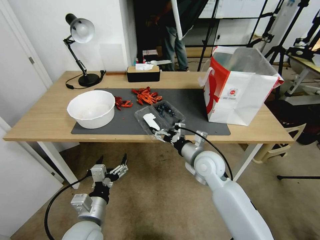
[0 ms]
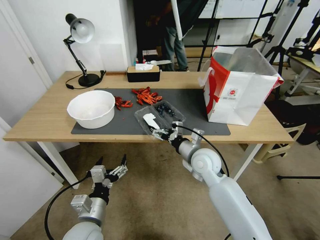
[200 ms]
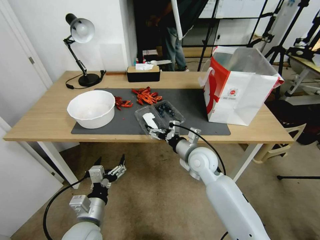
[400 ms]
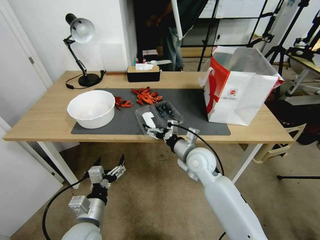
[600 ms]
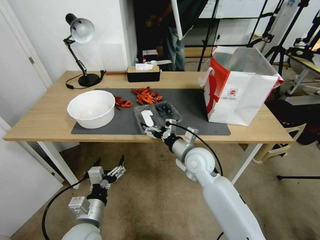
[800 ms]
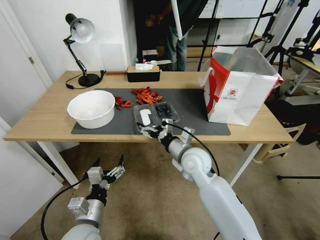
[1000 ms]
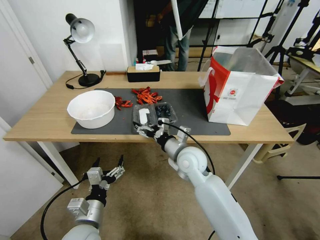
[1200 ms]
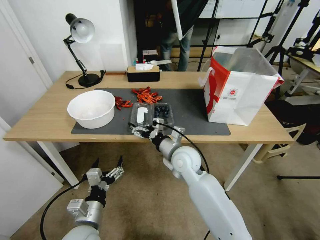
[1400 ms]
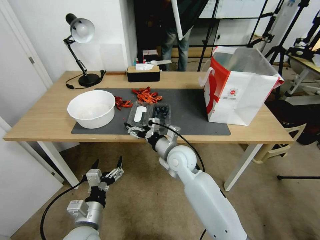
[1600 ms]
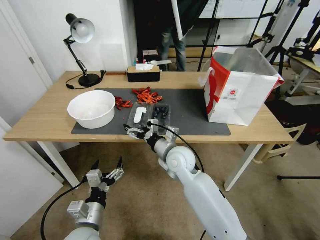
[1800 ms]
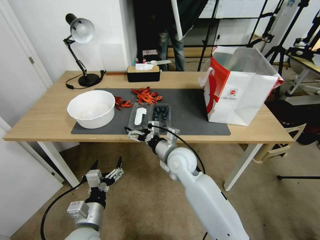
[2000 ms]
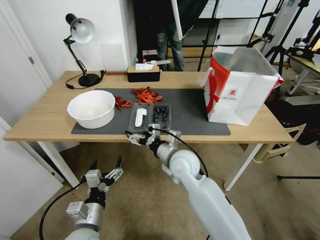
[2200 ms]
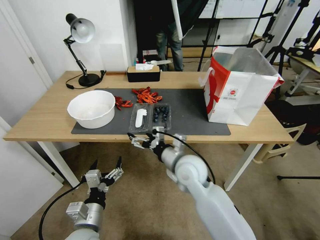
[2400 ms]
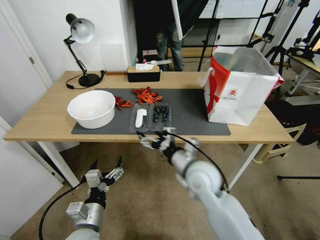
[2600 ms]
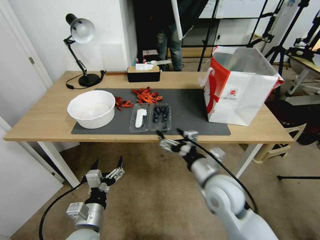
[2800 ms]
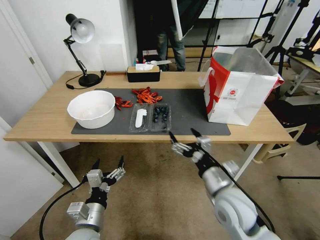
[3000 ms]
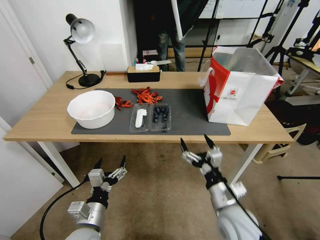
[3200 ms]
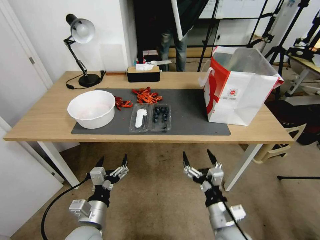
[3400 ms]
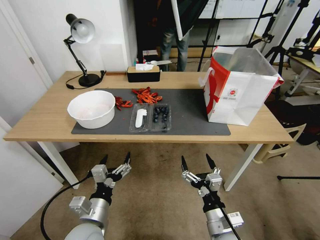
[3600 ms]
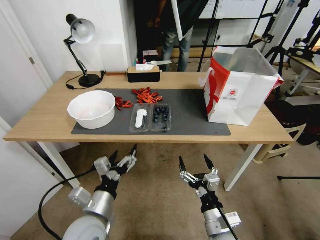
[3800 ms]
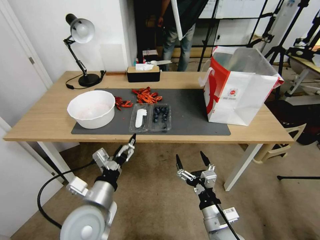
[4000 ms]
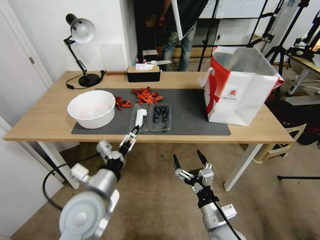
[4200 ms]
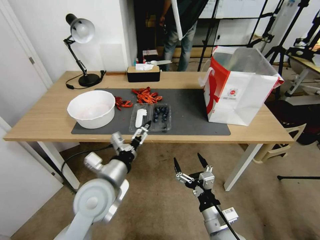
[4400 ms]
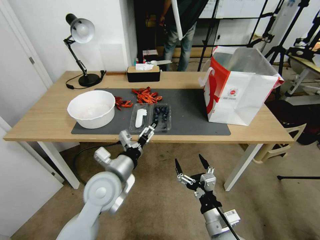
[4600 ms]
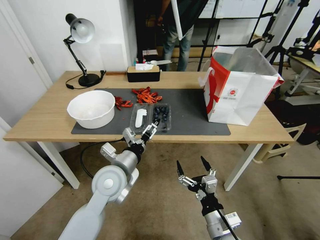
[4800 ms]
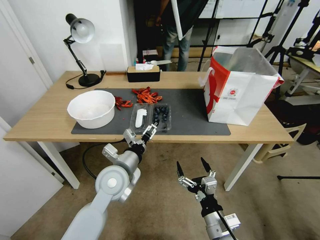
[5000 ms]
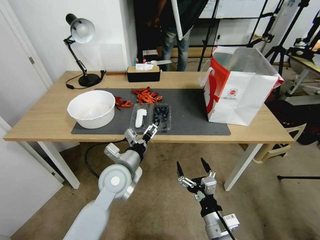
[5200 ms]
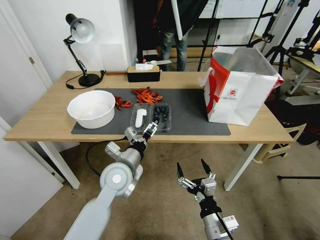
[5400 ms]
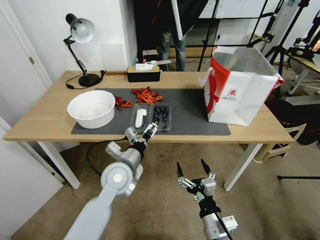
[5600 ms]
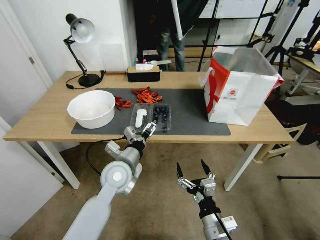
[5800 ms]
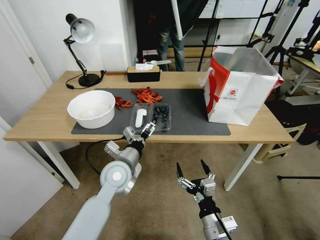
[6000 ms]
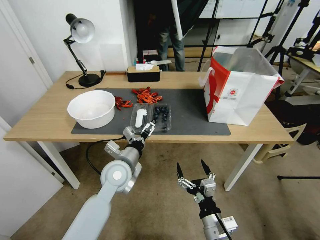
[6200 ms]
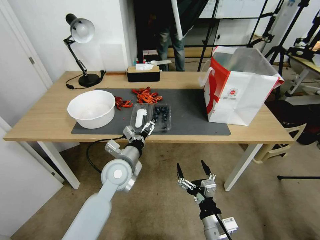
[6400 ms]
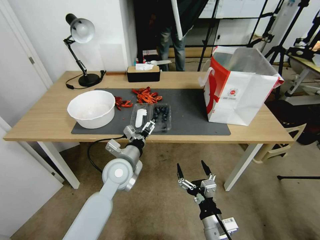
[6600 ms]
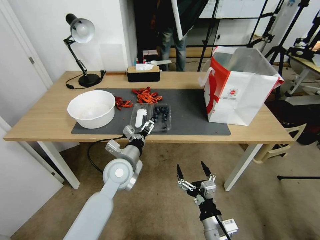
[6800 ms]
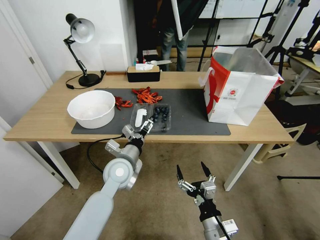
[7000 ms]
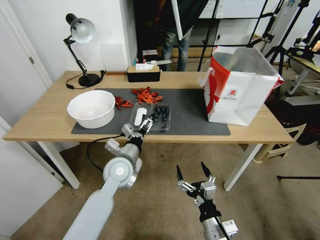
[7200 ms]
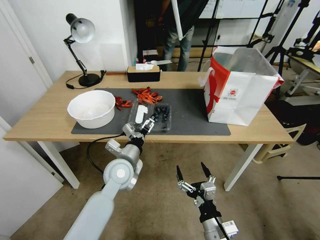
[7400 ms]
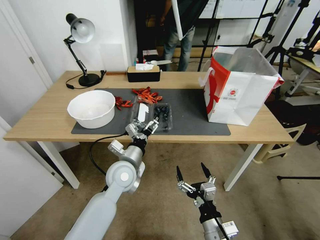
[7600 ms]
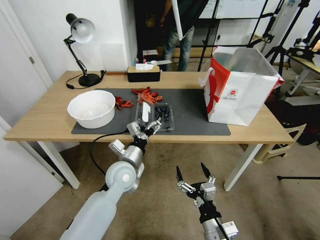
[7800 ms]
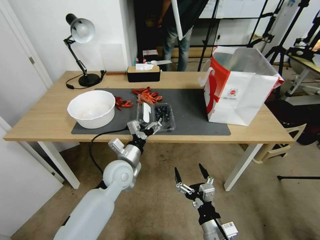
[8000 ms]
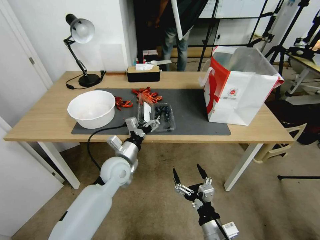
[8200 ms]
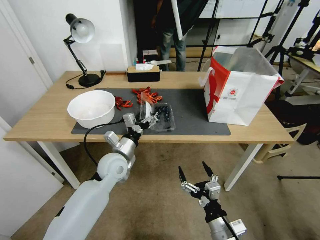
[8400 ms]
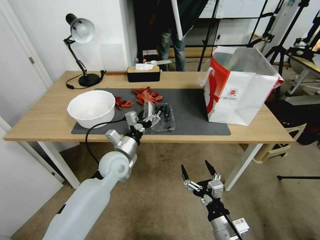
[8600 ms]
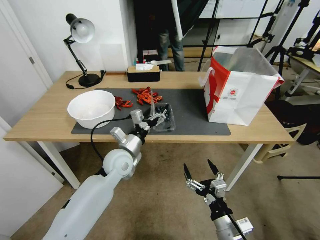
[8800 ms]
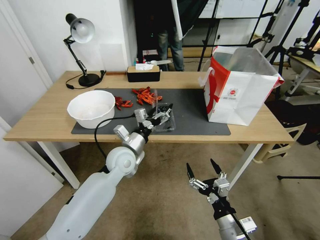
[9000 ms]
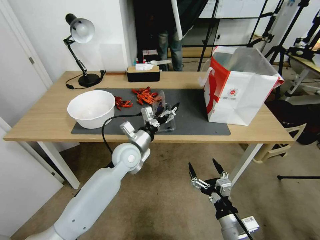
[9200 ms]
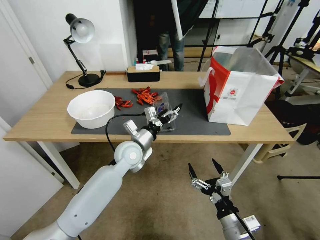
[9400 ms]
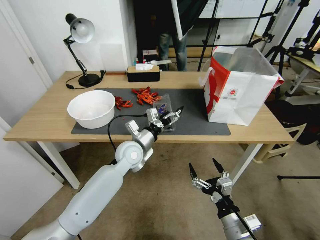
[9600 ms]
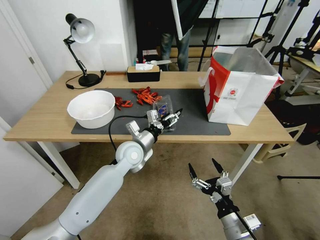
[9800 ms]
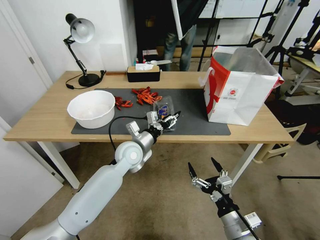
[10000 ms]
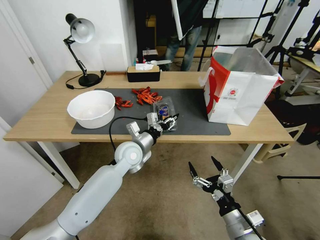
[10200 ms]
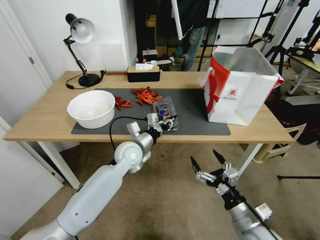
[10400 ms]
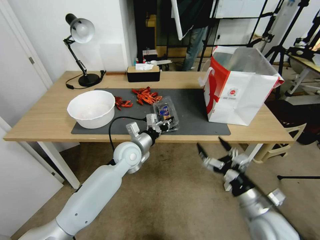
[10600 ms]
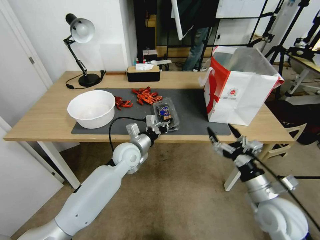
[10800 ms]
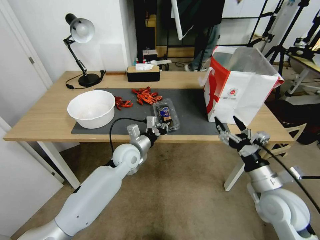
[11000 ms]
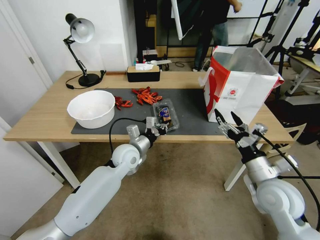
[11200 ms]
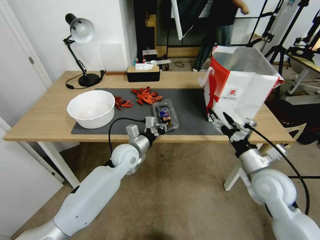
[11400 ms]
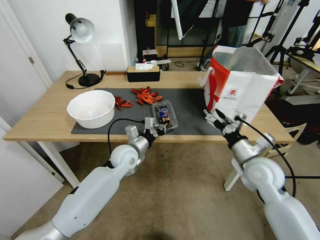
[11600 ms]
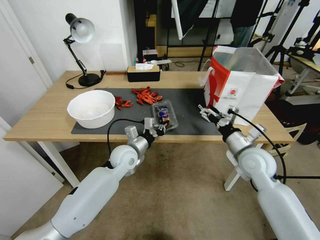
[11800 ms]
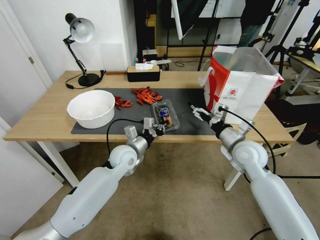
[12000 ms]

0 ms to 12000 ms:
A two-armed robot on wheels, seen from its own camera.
Task of the whole recording: Close the takeout container lid, then place the container into the takeout bag.
0 ms to 1600 ms: The right gripper heads to the left, covering approximately 10 cm.
1600 ms to 3000 ms: The right gripper heads backward and to the right, covering some 20 cm.
3000 ms to 4400 ms: The left gripper is displaced upward and forward by about 15 cm. Meanwhile the right gripper goes roughly 10 cm downward and backward.
4400 ms to 6000 ms: The left gripper shifts some 10 cm forward and downward.
6000 ms to 7600 ms: There are only small adjustments of the grippers.
9000 ms to 10400 ms: The left gripper closes its fingers; the right gripper shifts by approximately 5 cm.
10400 ms to 12000 ms: The right gripper is displaced forward and upward by approximately 25 cm.

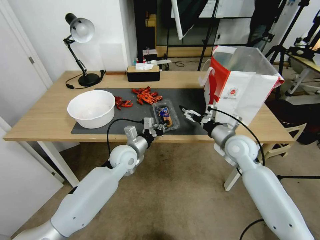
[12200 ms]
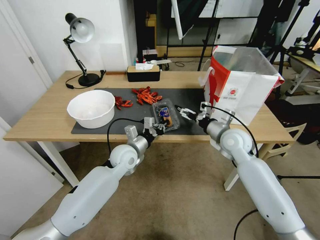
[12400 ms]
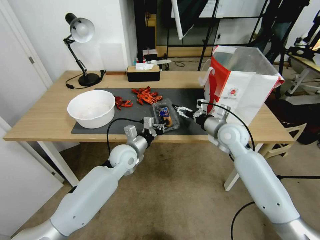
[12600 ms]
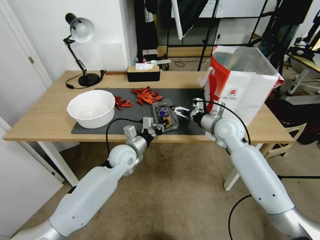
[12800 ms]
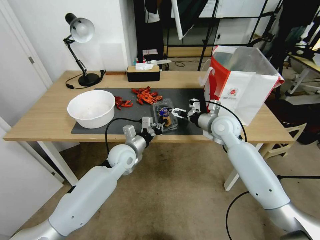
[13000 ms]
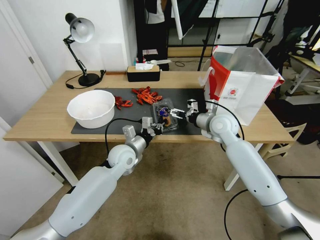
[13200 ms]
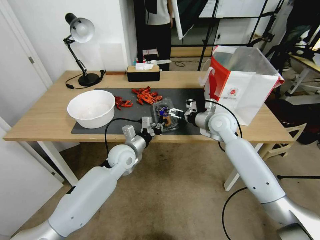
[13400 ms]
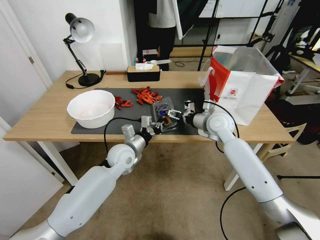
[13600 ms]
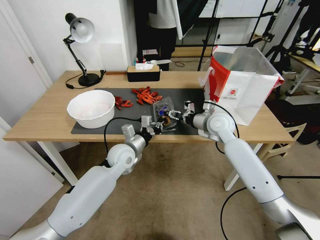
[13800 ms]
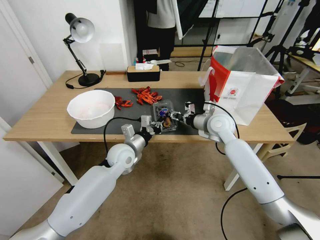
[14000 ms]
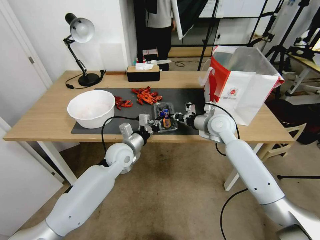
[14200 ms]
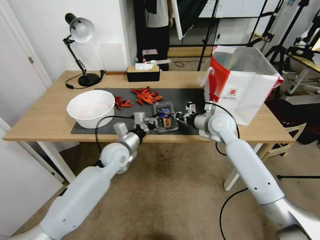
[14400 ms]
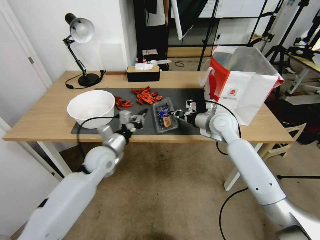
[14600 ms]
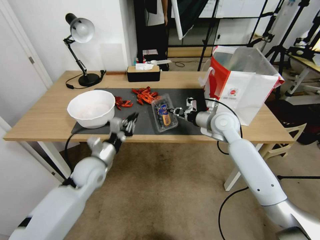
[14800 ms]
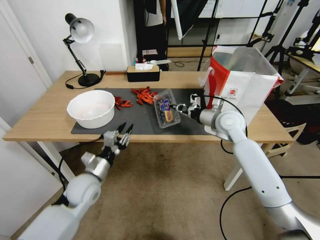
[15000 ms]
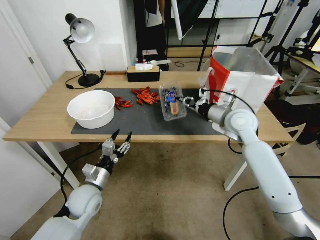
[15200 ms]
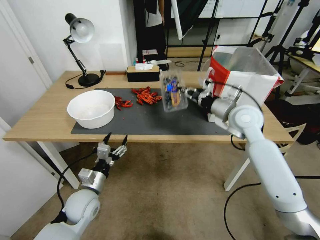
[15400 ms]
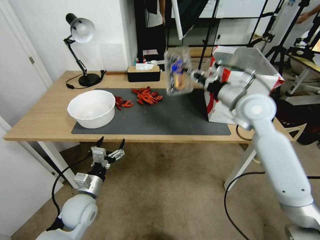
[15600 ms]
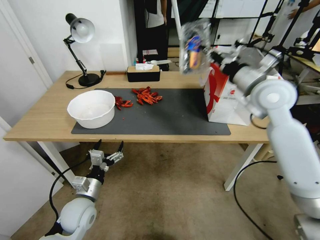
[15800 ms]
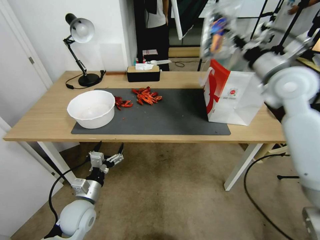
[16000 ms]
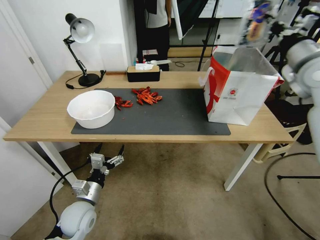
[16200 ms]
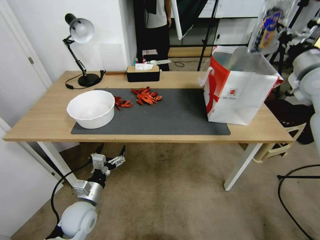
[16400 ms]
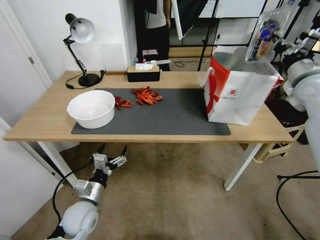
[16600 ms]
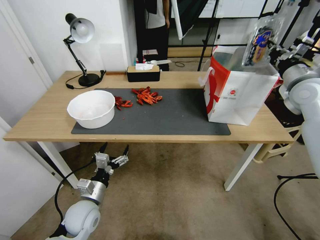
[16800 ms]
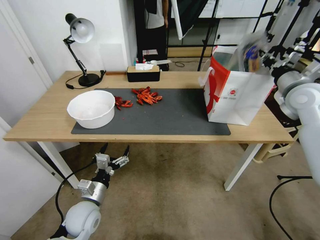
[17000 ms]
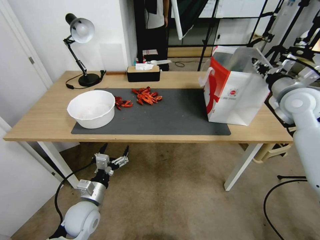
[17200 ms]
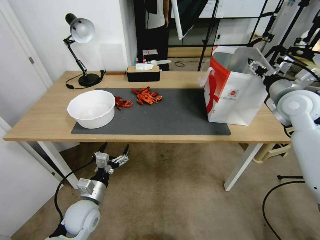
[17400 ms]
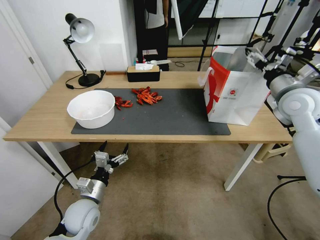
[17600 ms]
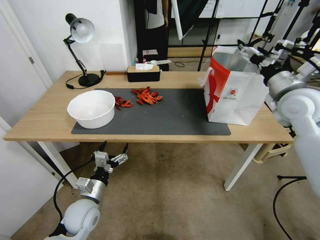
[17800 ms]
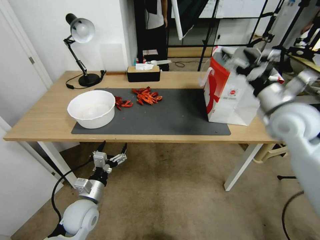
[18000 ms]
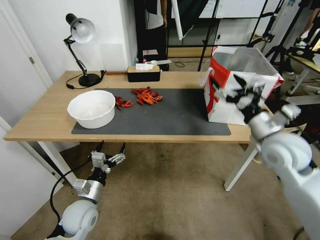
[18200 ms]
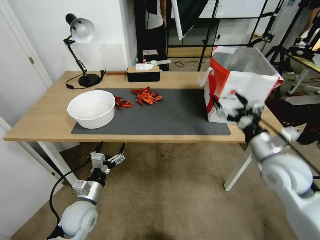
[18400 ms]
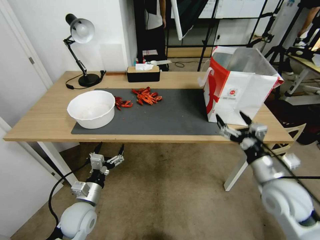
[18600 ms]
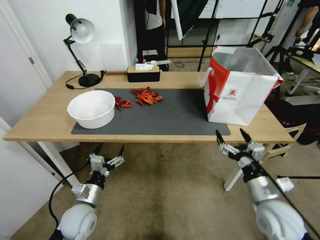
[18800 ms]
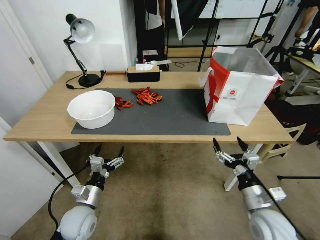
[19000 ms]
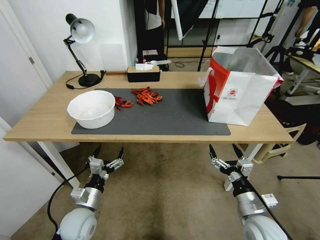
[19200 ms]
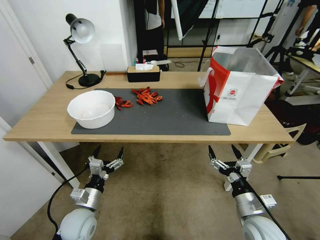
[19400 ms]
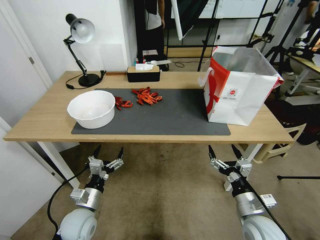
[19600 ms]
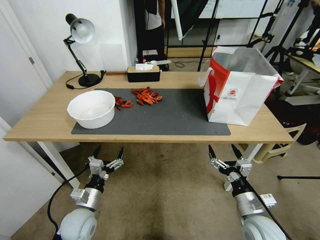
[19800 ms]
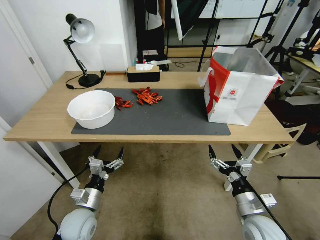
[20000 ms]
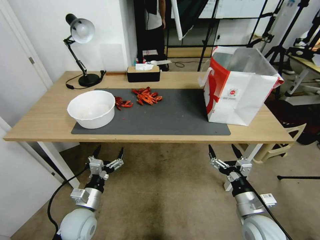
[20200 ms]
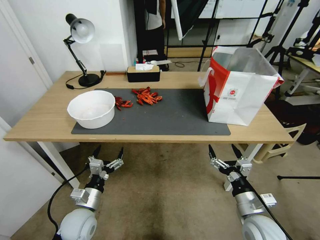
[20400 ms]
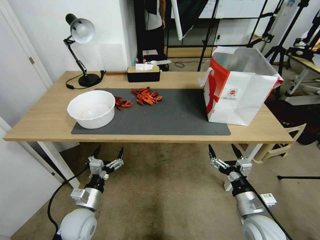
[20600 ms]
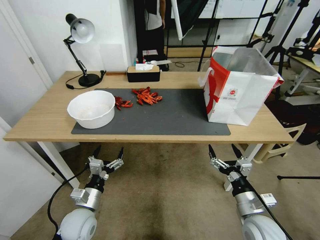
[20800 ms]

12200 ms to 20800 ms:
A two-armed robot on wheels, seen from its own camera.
Task of the whole recording: Close the takeout container lid, then place the container into the takeout bag.
12200 ms to 13600 ms: The right gripper shifts about 10 cm forward and to the left.
13600 ms to 15000 ms: The right gripper closes. The left gripper heads to the left and backward, covering about 15 cm.
15000 ms to 16600 ms: The left gripper heads backward and downward, covering roughly 10 cm, and opens up. The right gripper shifts roughly 25 cm to the right and upward.
16600 ms to 18000 ms: The right gripper is displaced to the left and backward by about 10 cm, and opens its fingers.
18000 ms to 19400 ms: The right gripper is displaced downward and backward by approximately 35 cm.
19400 ms to 20800 ms: Neither gripper changes place.

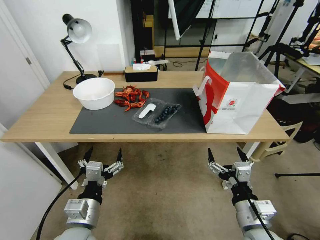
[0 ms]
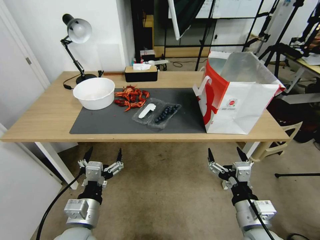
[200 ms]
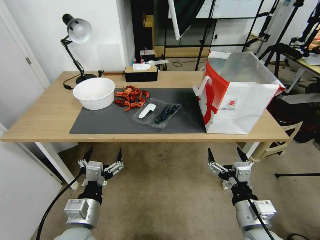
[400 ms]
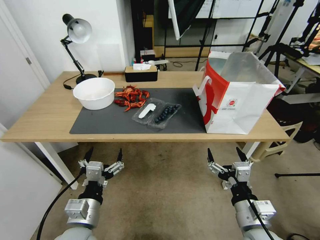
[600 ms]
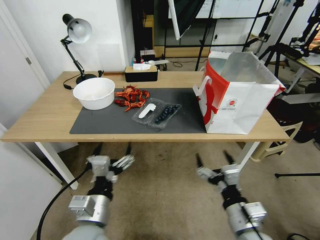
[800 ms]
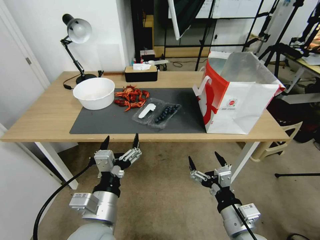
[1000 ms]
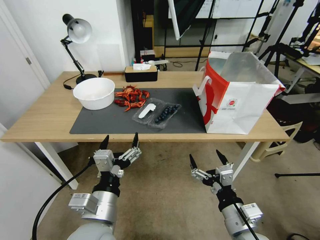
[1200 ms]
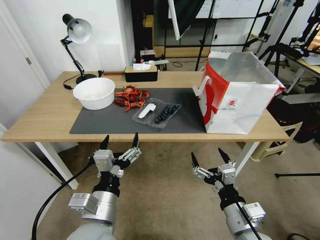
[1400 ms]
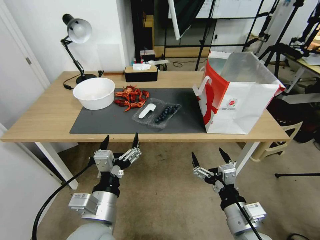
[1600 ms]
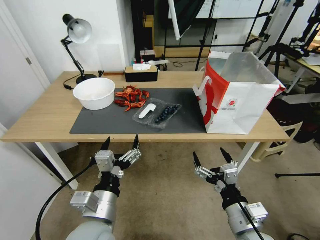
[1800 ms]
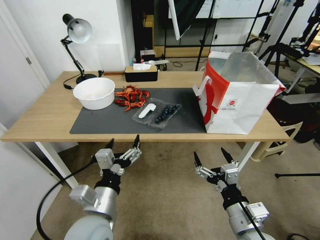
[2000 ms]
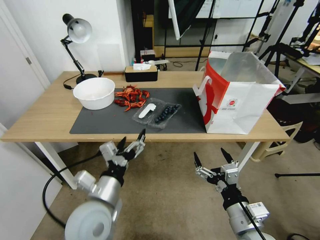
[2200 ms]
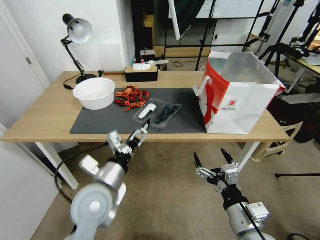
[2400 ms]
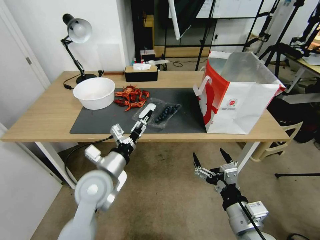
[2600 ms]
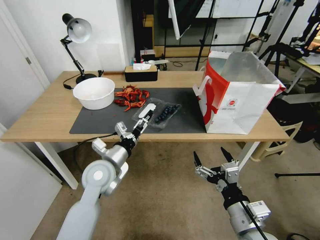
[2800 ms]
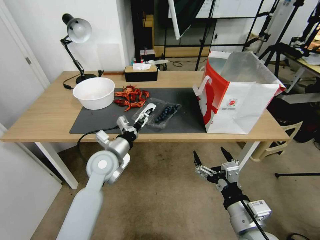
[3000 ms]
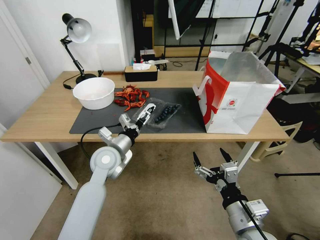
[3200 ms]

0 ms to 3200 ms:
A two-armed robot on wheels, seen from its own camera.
Task of the whole recording: Close the takeout container lid, then place the container into the takeout bag.
1600 ms to 3200 ms: The left gripper goes roughly 20 cm forward.
